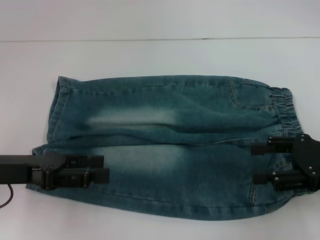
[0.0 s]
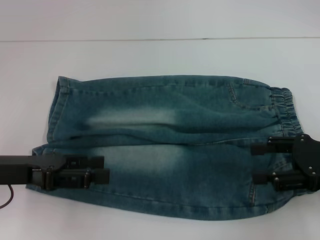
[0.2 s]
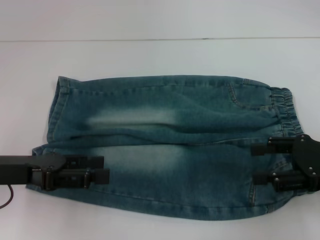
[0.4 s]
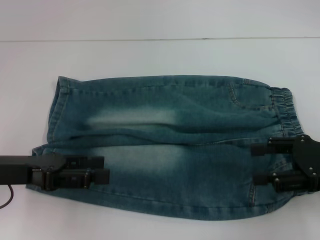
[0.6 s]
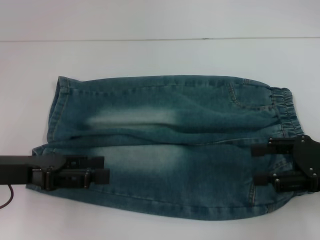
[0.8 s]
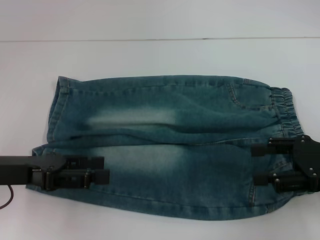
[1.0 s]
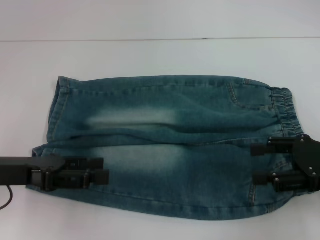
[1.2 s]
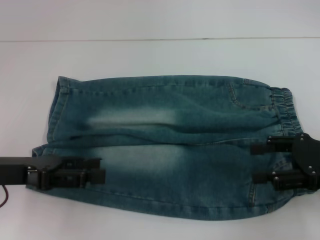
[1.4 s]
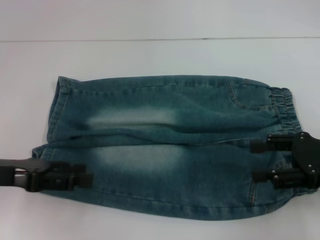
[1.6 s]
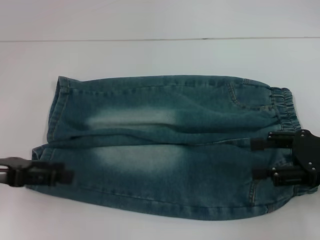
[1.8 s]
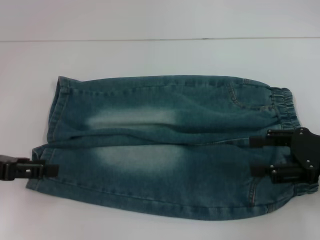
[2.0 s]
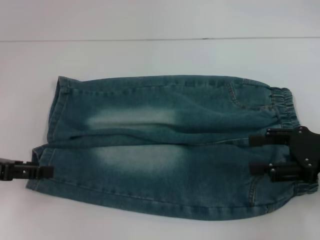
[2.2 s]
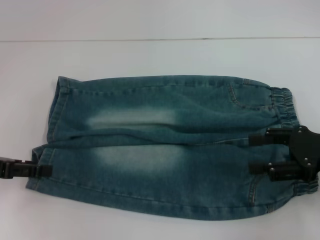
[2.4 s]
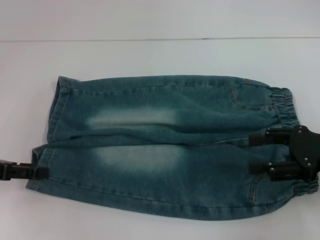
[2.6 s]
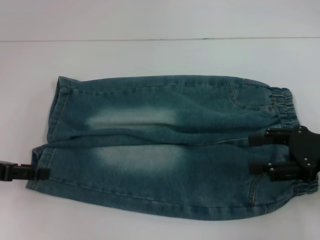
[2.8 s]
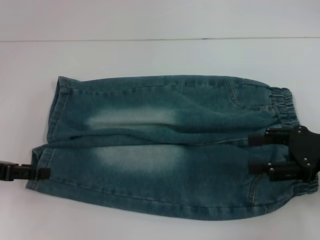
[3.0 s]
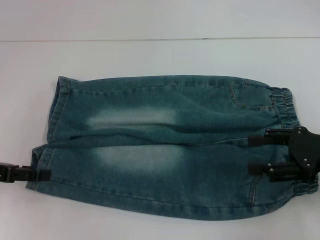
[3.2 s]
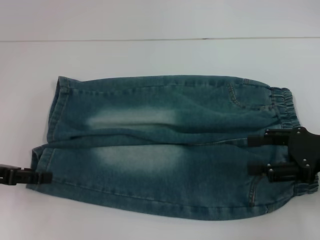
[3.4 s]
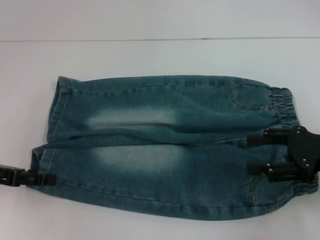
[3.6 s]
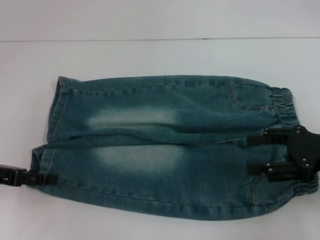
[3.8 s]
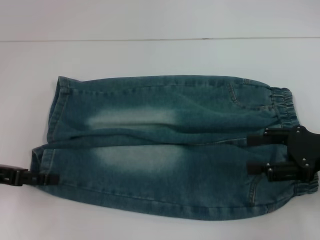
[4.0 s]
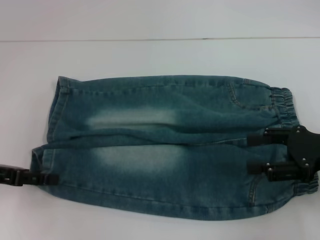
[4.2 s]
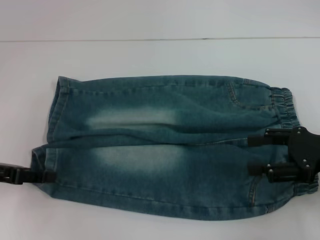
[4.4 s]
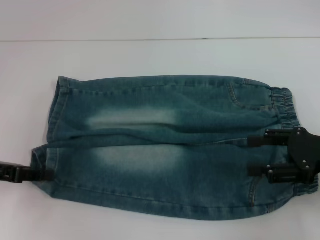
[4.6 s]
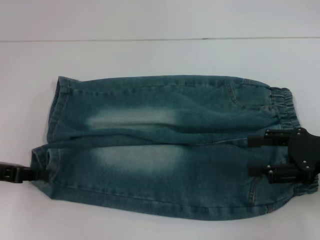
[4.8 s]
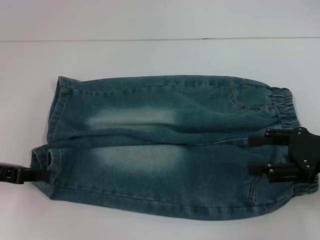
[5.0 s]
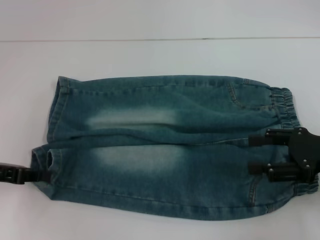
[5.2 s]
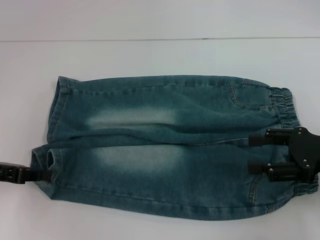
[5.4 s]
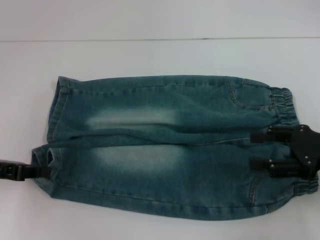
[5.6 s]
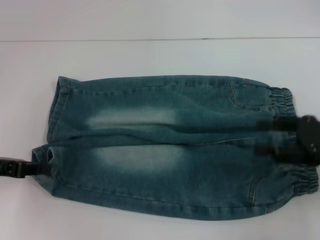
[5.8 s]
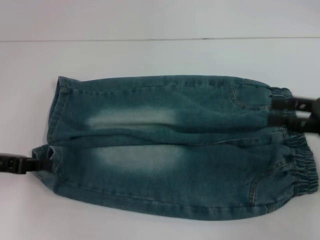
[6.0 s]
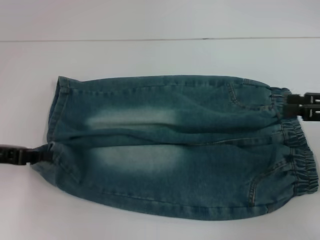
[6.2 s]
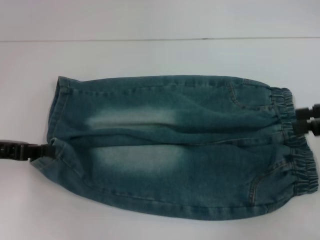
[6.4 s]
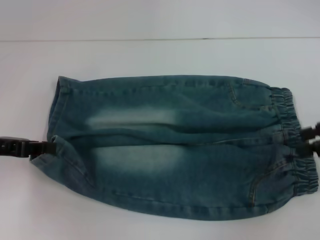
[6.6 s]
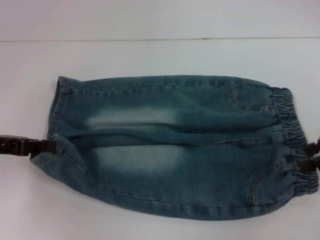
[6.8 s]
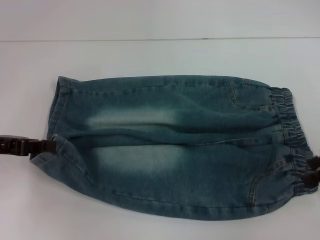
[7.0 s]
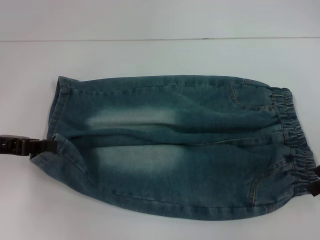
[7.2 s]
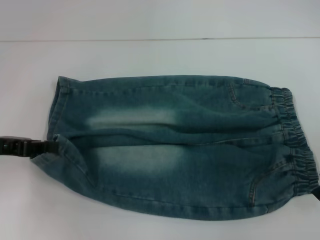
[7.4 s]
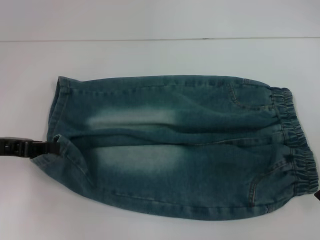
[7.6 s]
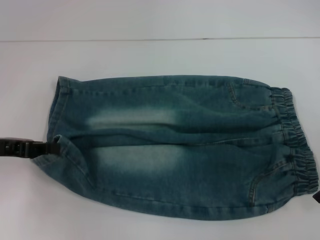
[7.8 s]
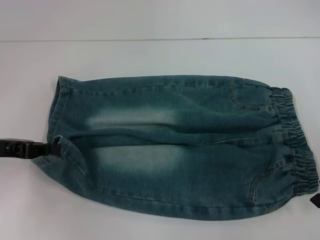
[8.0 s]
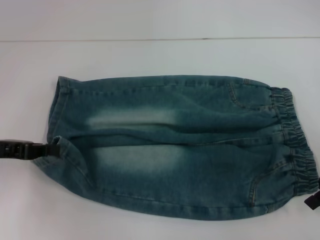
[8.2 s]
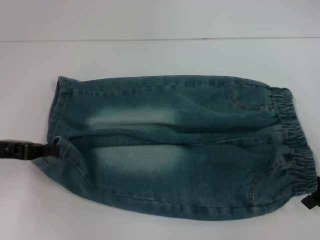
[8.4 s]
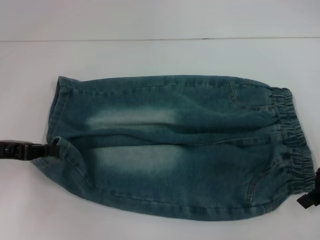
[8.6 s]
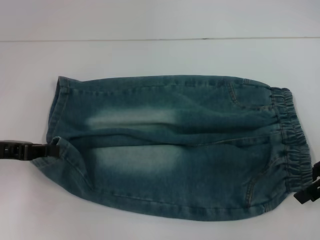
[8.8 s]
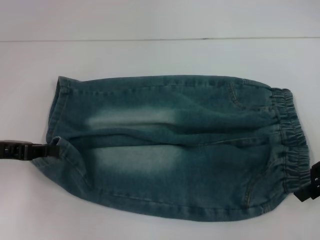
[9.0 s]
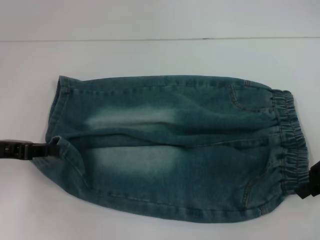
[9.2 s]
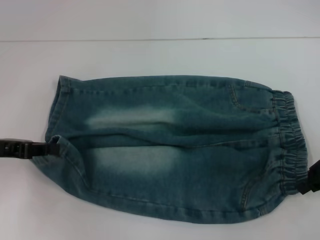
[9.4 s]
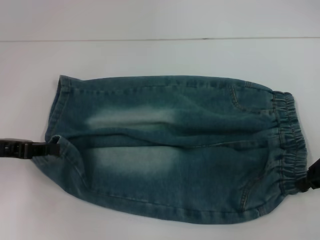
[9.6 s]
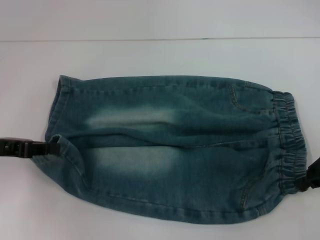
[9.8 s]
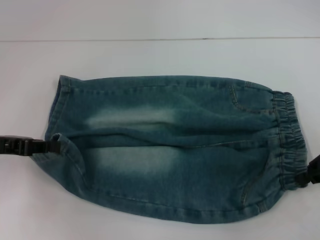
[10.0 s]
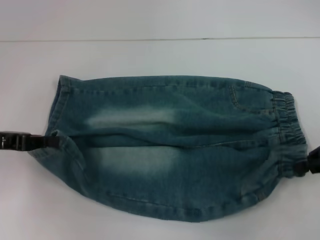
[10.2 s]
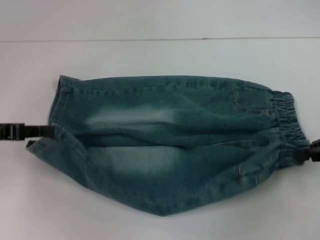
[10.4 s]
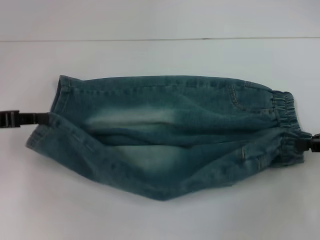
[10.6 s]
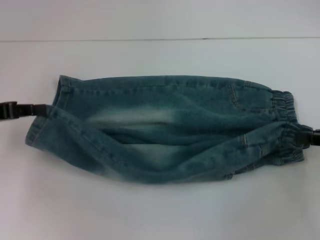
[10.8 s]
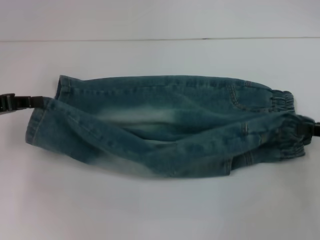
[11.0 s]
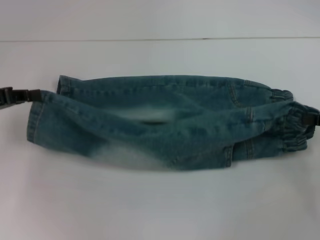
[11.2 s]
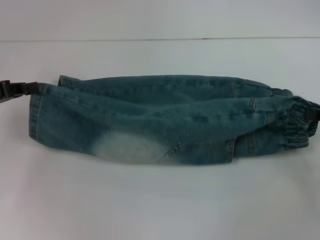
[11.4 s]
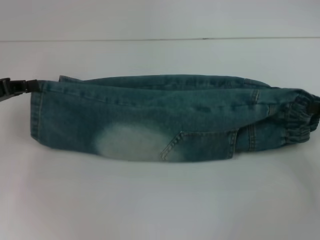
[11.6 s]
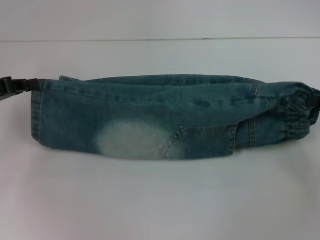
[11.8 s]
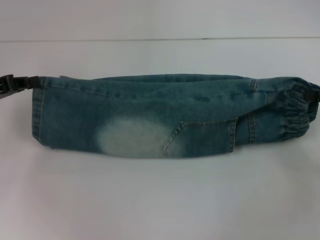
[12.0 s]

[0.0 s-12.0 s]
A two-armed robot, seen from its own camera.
Step, 0.0 to 5.0 s: Hold the lower left waistband with your left hand.
Step, 5.4 to 9.2 s: Grab the lower right pant leg with your right hand.
0.0 to 1.6 s: The grippers stay close to where they were, moving slightly.
1.6 to 3.0 s: The left gripper is displaced to the left by some 5 cm.
3.0 to 4.4 s: The two grippers keep their place.
4.4 to 6.0 s: The left gripper closes up.
7.6 to 9.0 s: The grippers stay close to where they were, moving slightly.
9.0 to 10.4 s: The right gripper closes its fingers.

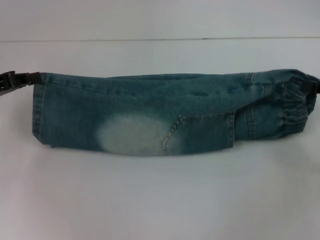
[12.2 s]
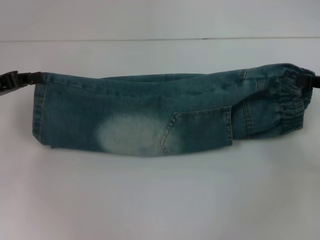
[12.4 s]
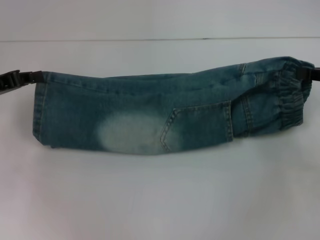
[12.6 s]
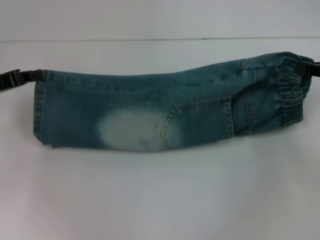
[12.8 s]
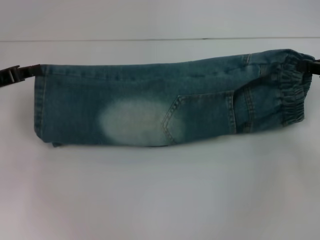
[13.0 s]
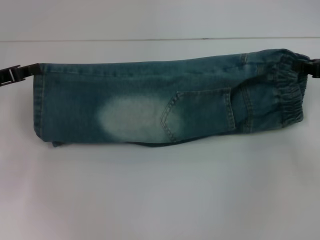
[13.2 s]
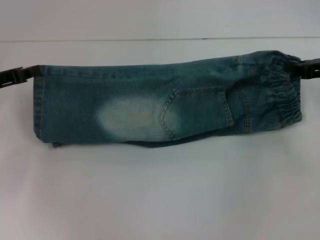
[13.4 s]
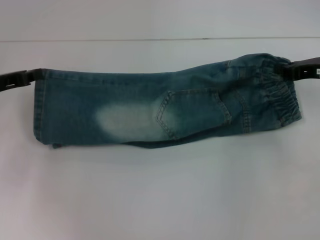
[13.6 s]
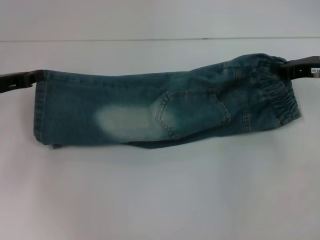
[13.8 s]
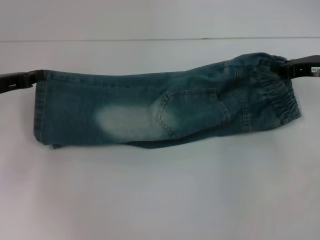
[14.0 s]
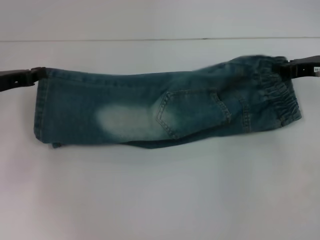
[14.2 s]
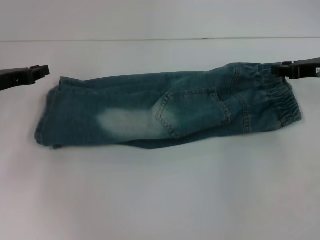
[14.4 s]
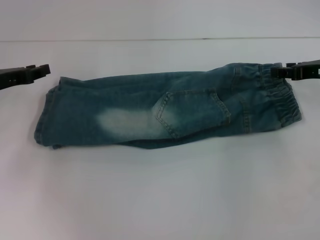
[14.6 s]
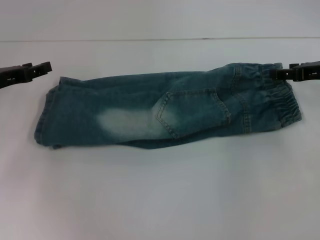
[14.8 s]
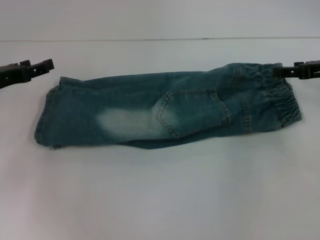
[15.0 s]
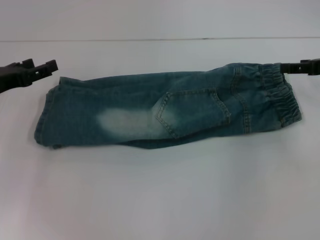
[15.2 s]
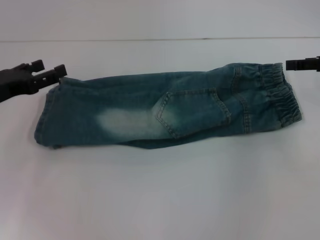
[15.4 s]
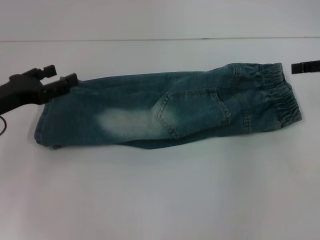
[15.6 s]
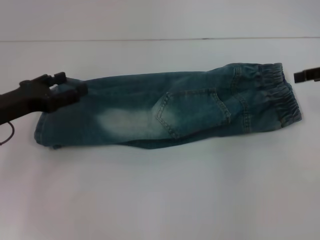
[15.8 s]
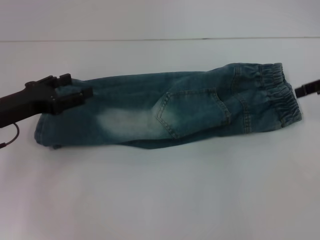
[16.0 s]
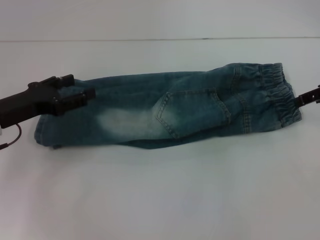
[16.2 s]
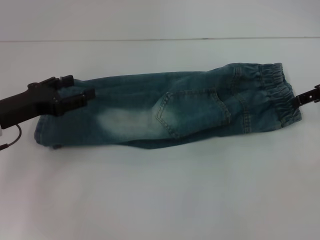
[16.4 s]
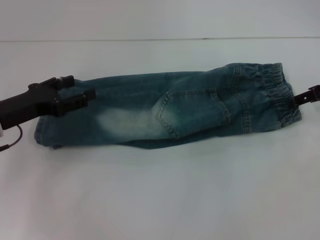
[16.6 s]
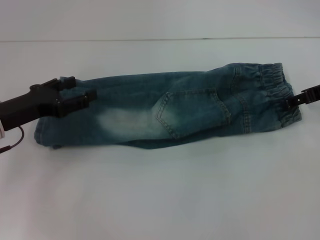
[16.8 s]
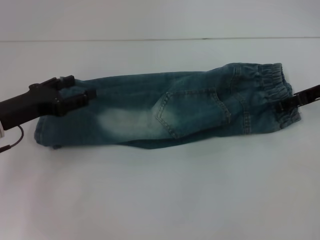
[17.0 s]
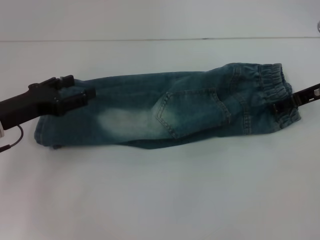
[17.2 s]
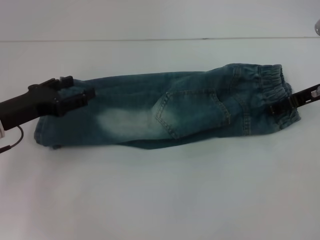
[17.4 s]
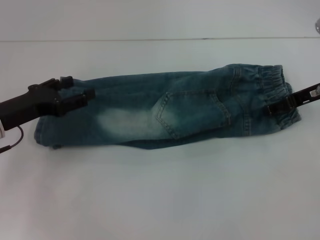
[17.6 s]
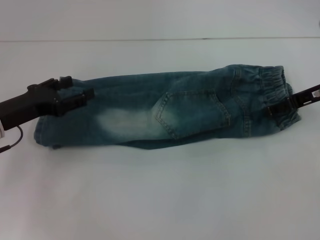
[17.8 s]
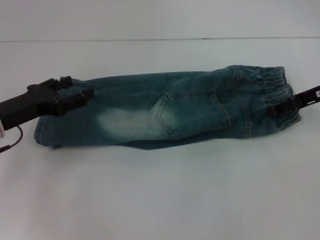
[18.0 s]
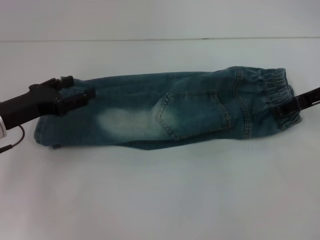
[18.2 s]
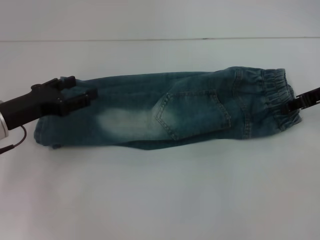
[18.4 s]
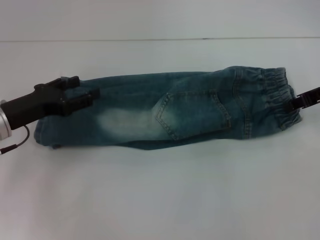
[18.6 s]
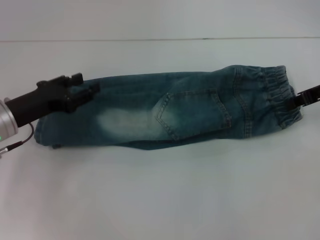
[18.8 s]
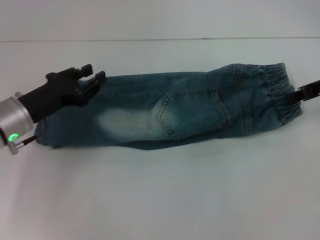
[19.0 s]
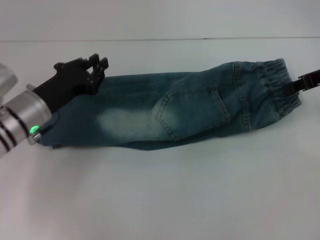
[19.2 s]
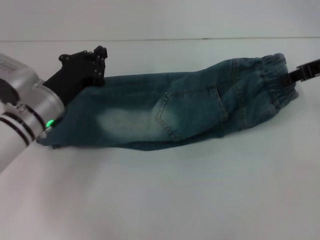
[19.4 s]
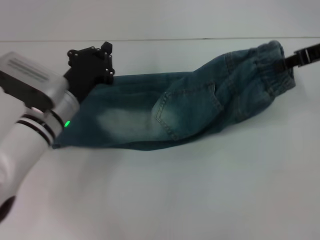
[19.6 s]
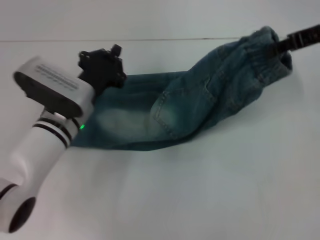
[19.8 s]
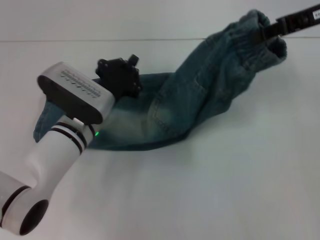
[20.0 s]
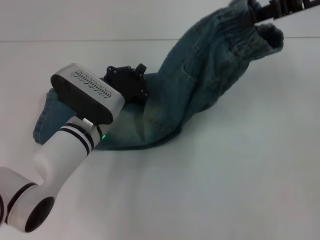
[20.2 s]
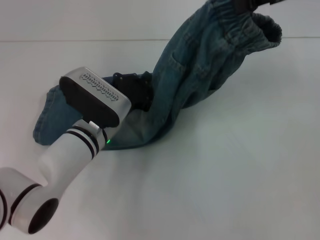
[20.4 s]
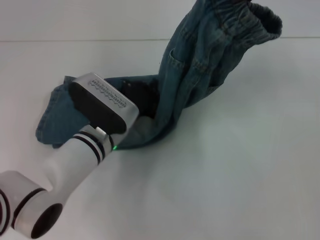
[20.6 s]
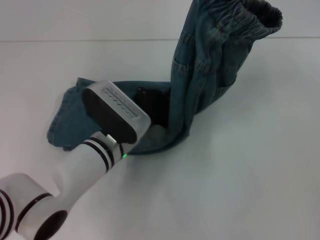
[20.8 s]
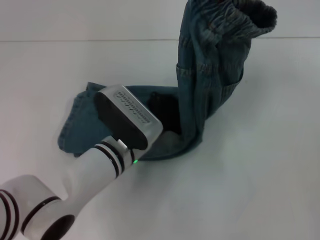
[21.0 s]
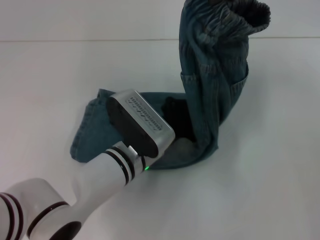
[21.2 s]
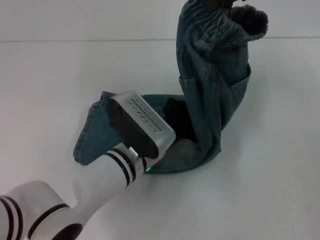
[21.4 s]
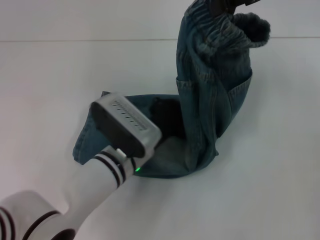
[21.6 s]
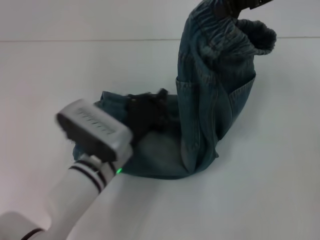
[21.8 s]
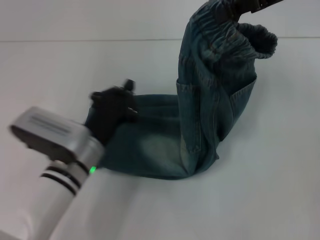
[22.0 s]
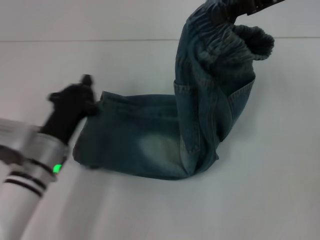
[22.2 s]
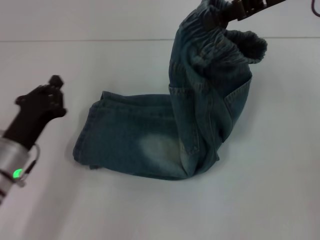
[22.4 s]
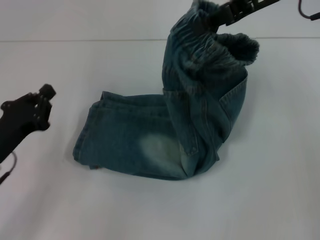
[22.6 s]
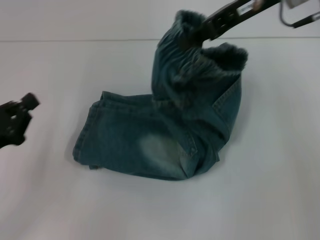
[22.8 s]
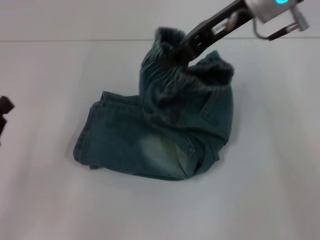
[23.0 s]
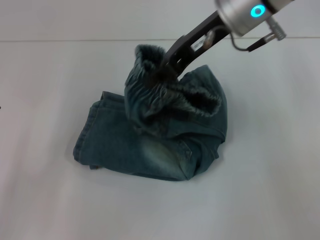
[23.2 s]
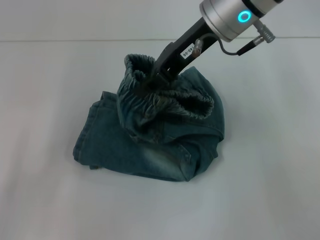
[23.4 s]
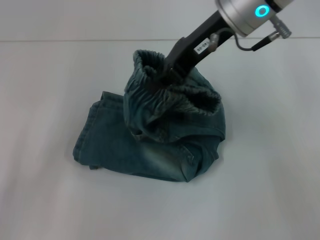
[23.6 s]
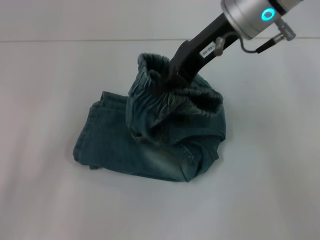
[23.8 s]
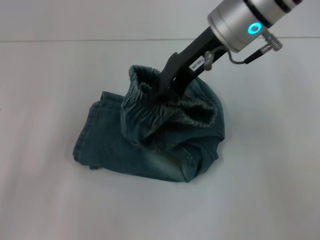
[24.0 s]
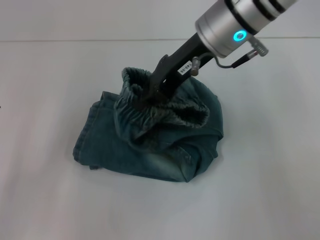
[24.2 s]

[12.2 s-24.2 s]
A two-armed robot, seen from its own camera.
Step, 12.2 to 16.2 s: Fold upward with your right hand.
Step, 17.0 to 21.6 s: Press the middle of the pants with your left hand.
12.2 to 13.8 s: The right gripper moves forward and to the left, about 10 cm.
13.8 to 15.2 s: The left gripper opens its fingers; the right gripper opens.
16.6 to 18.2 s: The grippers make only small movements.
18.2 to 19.8 s: The left gripper moves to the right, some 15 cm, and closes. The right gripper shifts about 10 cm upward, and closes.
19.8 to 21.2 s: The left gripper heads to the right, covering roughly 10 cm; the right gripper shifts about 10 cm upward and to the left.
21.2 to 22.6 s: The left gripper travels to the left by about 20 cm.
22.6 to 24.2 s: The right gripper moves to the left, about 10 cm, while the left gripper moves to the left and backward, about 10 cm.
